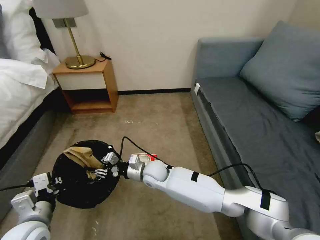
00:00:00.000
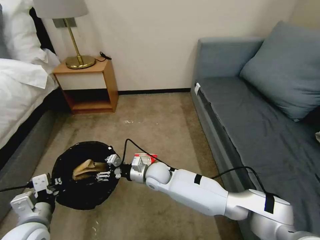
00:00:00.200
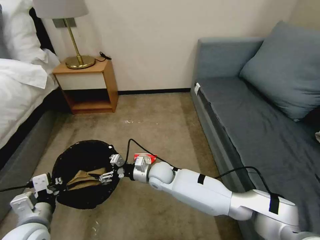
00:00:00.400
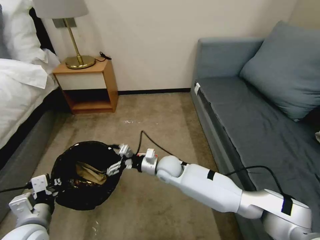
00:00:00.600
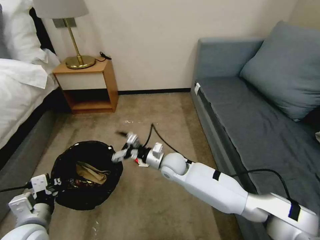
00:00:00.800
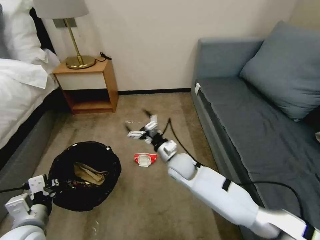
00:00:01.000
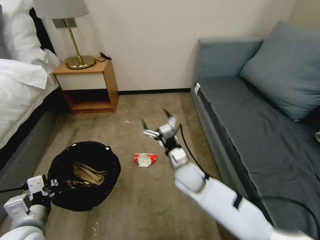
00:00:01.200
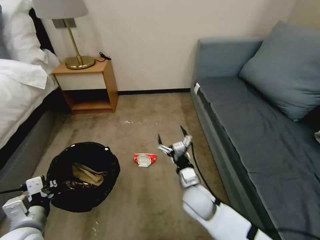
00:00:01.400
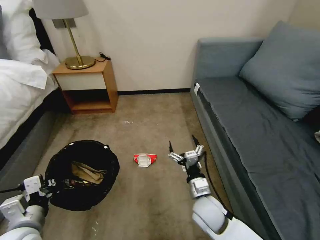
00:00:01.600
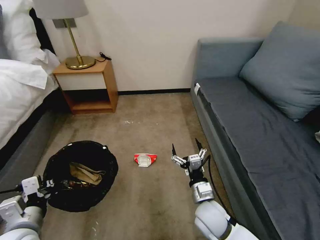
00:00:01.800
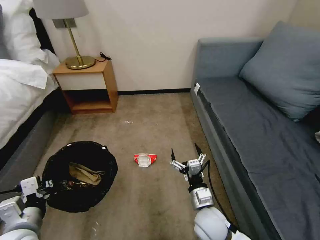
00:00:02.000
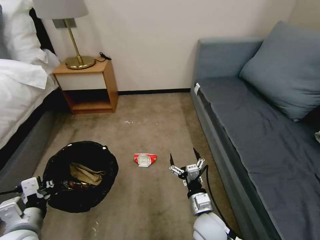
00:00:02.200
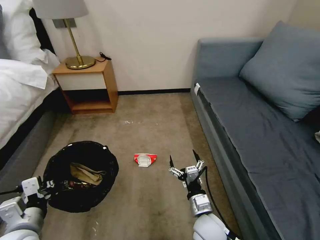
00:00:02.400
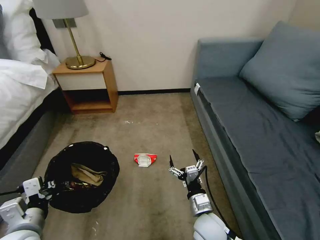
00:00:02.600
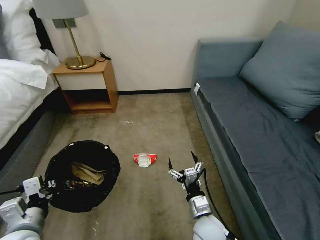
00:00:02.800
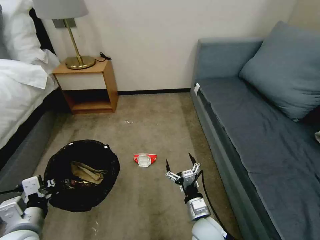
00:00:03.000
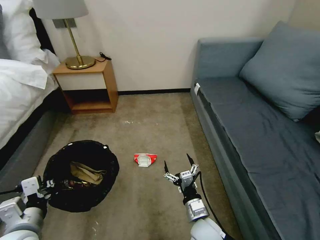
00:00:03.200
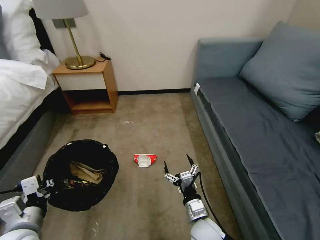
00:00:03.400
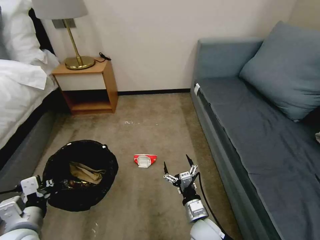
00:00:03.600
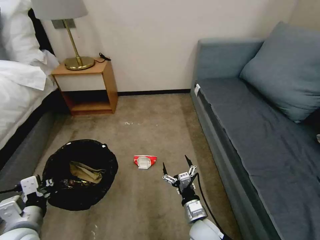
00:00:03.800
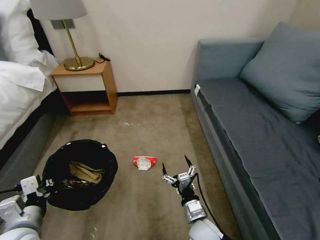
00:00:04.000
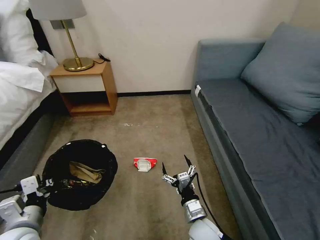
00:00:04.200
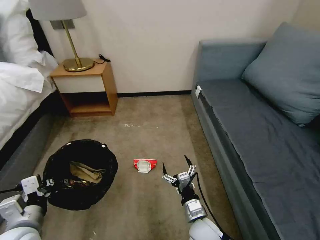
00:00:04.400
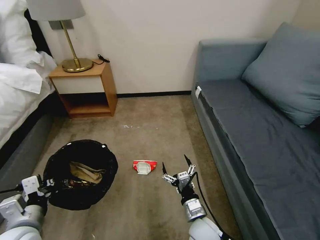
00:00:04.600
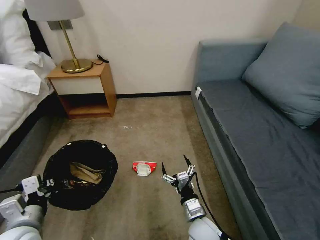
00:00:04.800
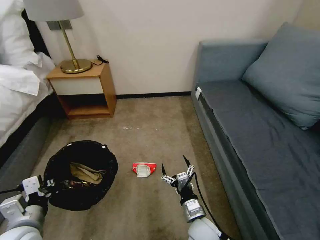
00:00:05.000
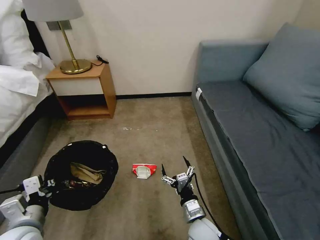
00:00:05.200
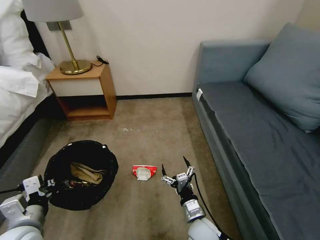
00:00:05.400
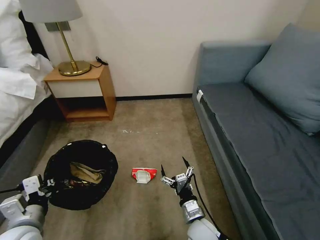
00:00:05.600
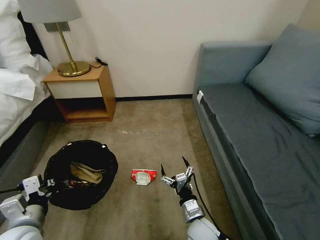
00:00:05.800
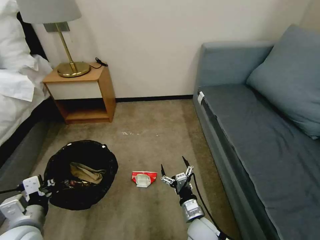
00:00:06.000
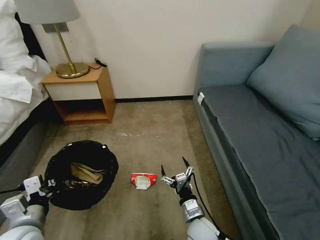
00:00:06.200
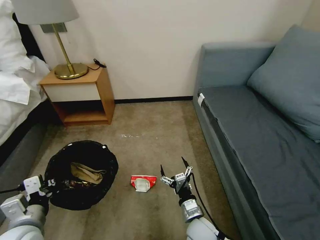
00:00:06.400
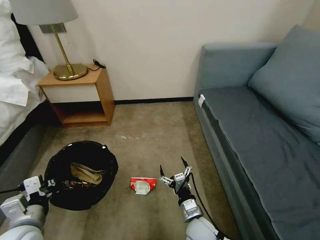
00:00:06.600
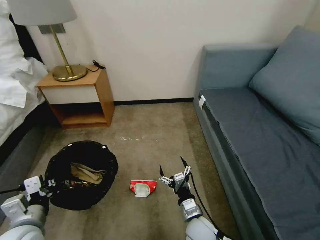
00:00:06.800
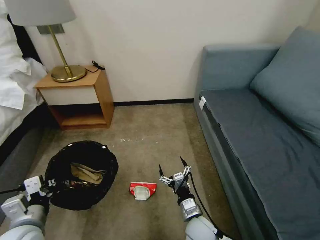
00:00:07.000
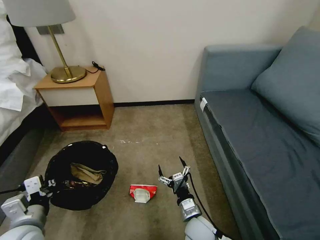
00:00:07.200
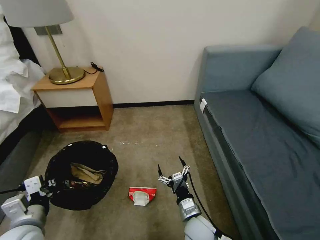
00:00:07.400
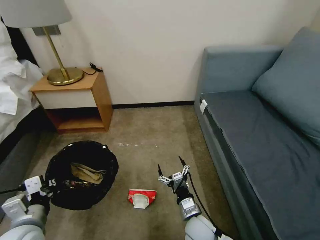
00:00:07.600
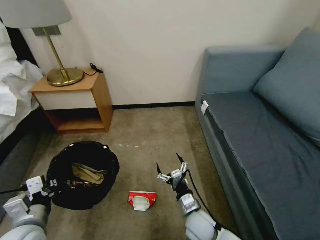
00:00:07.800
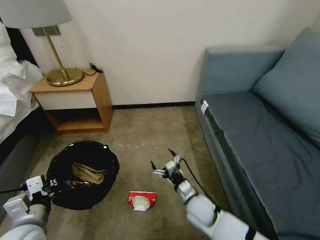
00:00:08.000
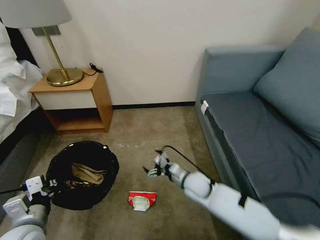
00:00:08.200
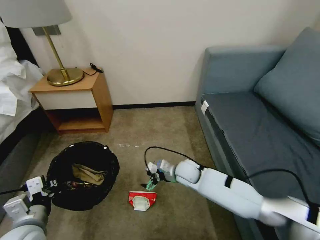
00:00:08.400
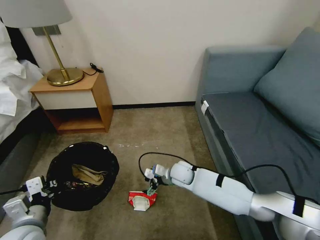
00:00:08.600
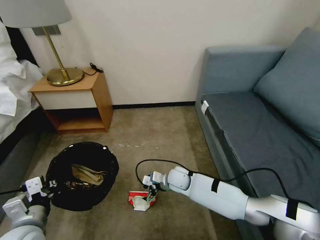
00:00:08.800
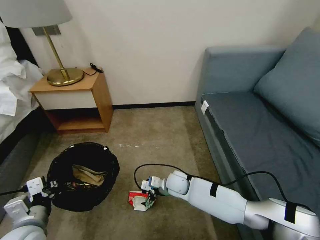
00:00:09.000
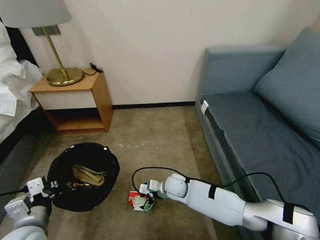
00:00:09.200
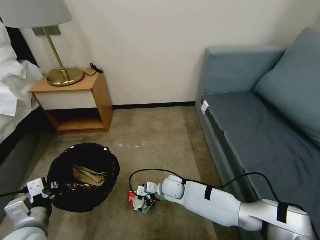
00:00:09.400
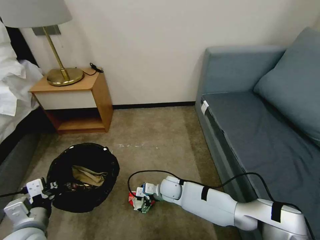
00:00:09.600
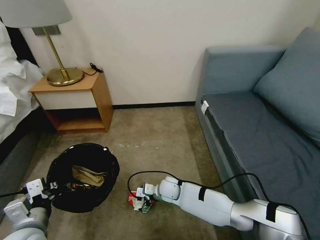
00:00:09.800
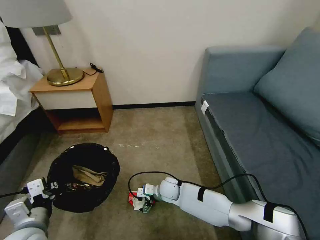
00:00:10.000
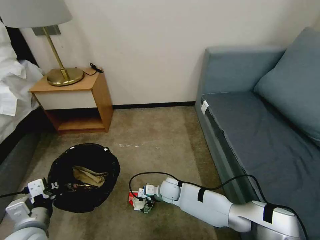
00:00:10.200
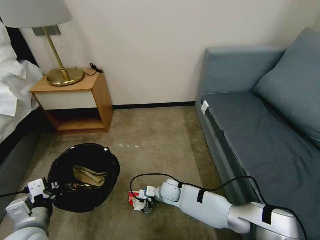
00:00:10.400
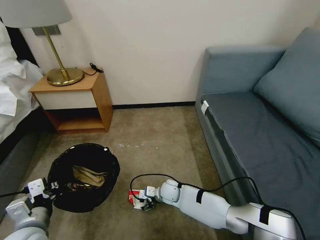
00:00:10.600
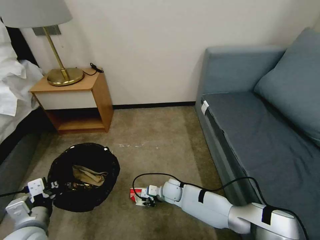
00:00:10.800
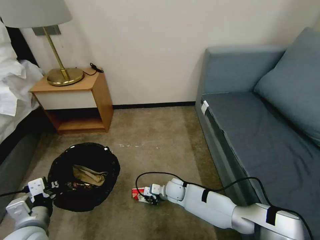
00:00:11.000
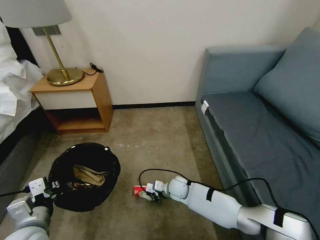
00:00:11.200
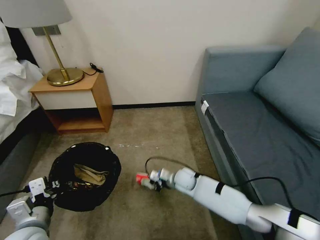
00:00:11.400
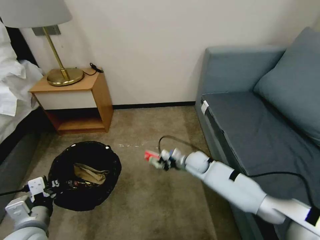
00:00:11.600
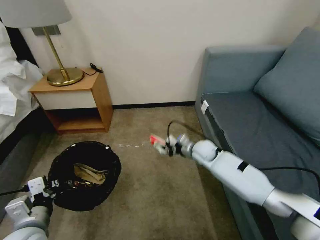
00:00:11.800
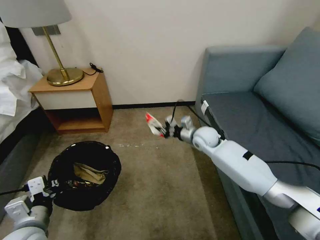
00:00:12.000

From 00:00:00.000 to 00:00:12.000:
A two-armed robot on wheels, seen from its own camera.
Task of the whole recording: Pick up the trash bin, then pick up the garbage on the floor and place it into the trash bin.
From 00:00:00.000 to 00:00:01.600: The right gripper moves to the right and backward, approximately 20 cm, and opens.
From 00:00:01.600 to 00:00:03.000: The right gripper goes approximately 5 cm backward.
From 00:00:03.000 to 00:00:04.400: The two grippers keep their place.
From 00:00:04.400 to 00:00:06.000: The two grippers keep their place.
From 00:00:06.000 to 00:00:07.600: Both grippers stay about where they are.
From 00:00:07.600 to 00:00:09.000: The right gripper travels forward by roughly 15 cm.
From 00:00:09.000 to 00:00:10.400: The right gripper is displaced downward by about 5 cm.
From 00:00:10.400 to 00:00:12.000: The right gripper moves upward, to the right and forward, about 30 cm, and closes.

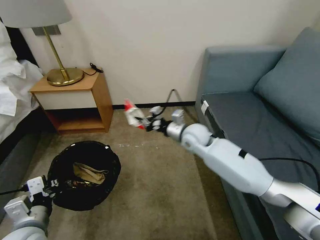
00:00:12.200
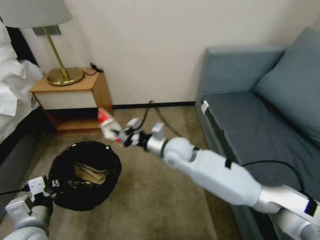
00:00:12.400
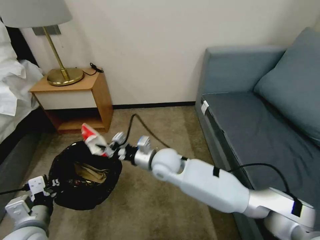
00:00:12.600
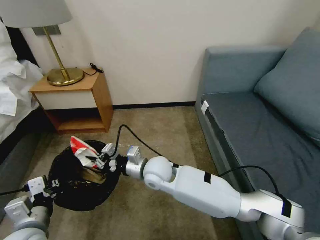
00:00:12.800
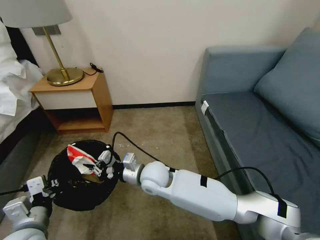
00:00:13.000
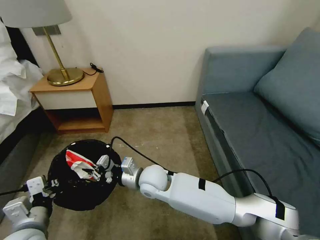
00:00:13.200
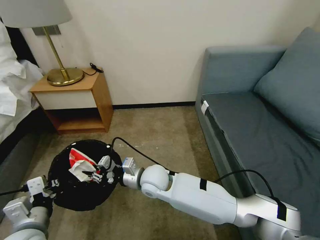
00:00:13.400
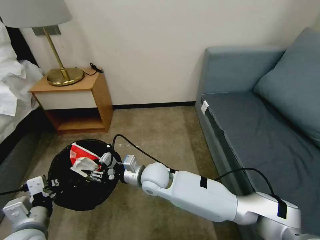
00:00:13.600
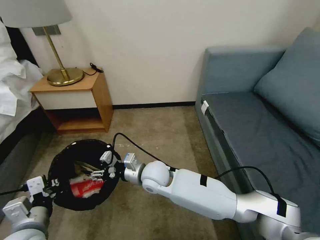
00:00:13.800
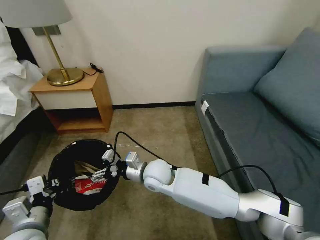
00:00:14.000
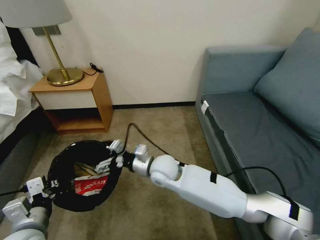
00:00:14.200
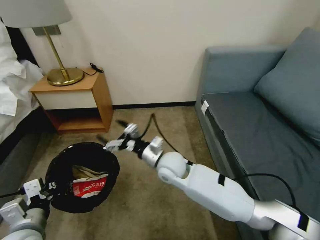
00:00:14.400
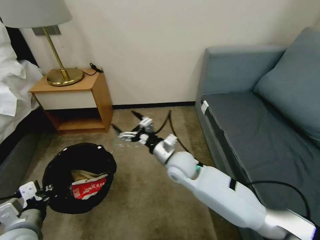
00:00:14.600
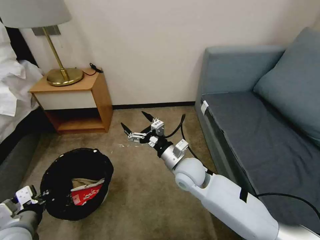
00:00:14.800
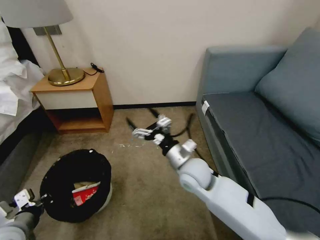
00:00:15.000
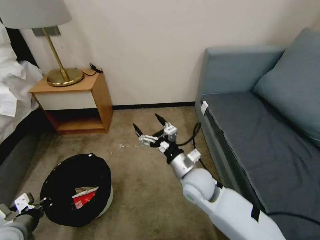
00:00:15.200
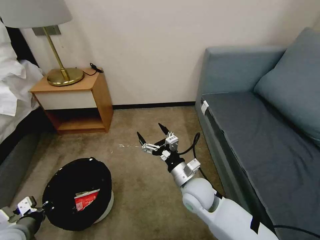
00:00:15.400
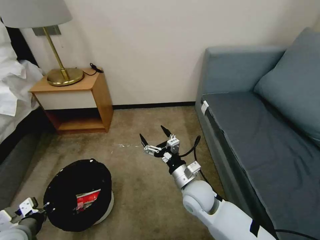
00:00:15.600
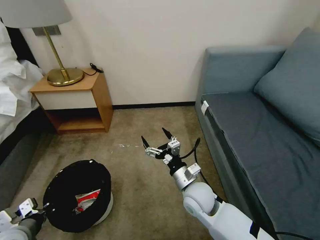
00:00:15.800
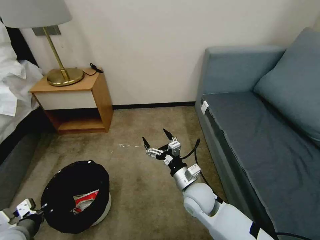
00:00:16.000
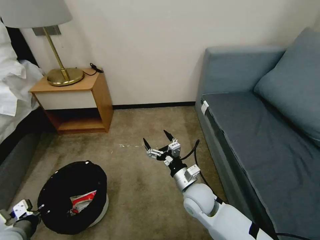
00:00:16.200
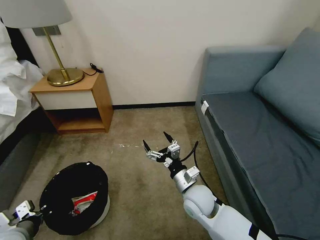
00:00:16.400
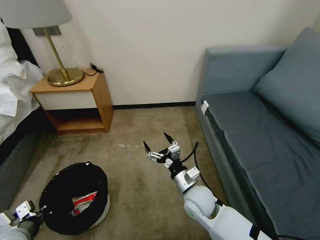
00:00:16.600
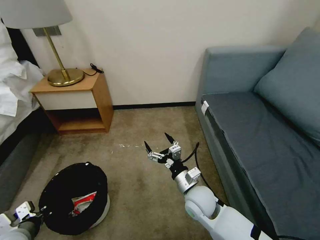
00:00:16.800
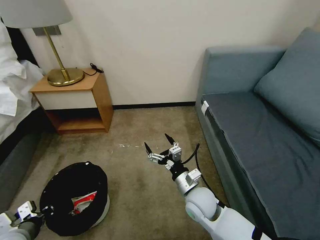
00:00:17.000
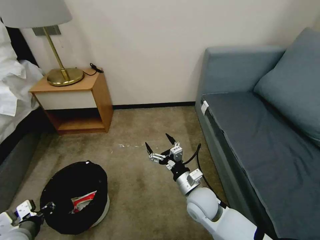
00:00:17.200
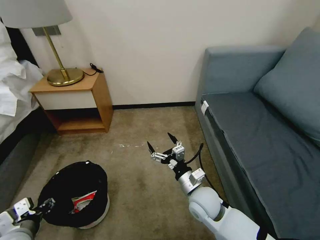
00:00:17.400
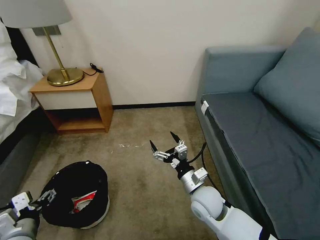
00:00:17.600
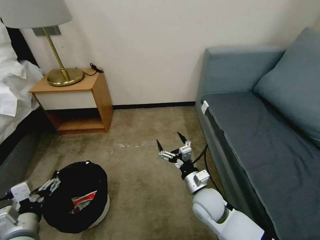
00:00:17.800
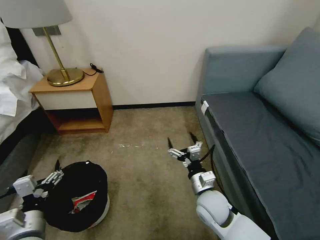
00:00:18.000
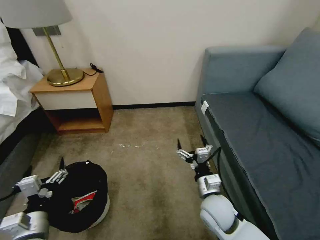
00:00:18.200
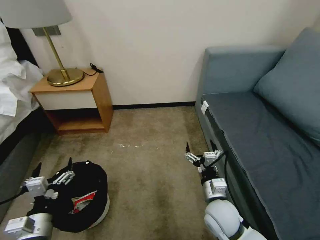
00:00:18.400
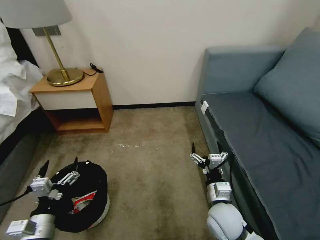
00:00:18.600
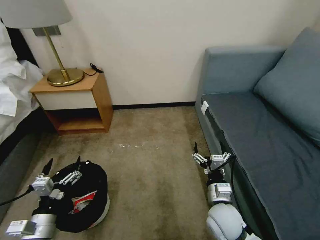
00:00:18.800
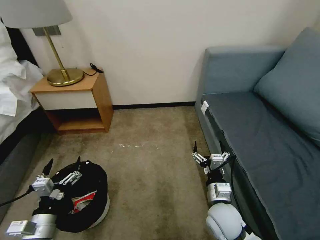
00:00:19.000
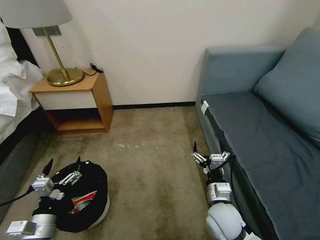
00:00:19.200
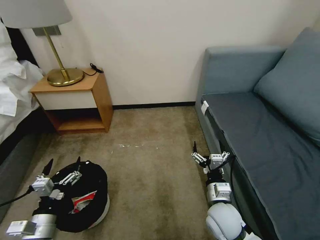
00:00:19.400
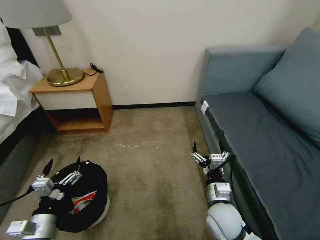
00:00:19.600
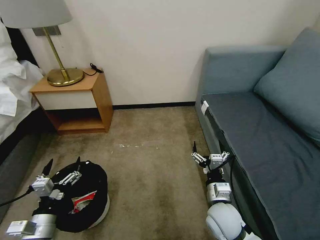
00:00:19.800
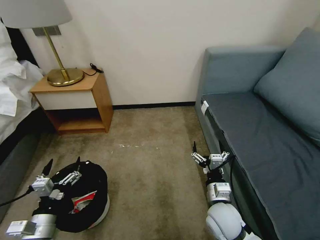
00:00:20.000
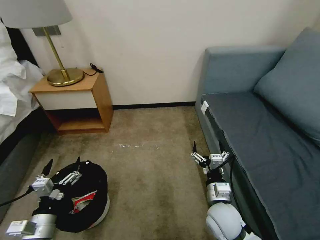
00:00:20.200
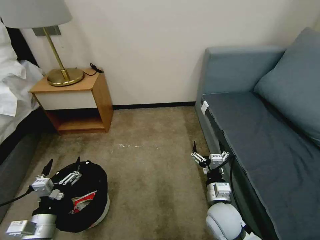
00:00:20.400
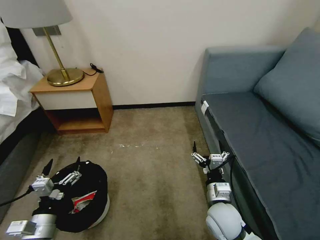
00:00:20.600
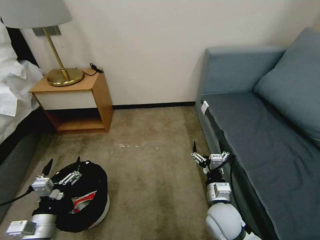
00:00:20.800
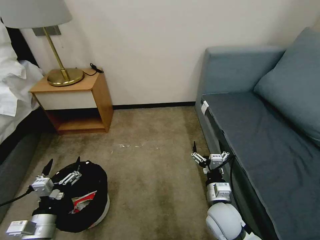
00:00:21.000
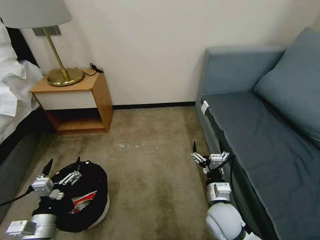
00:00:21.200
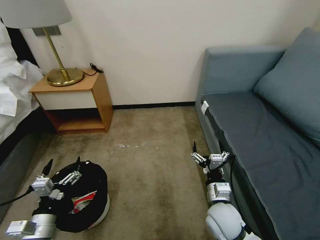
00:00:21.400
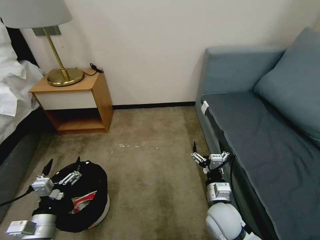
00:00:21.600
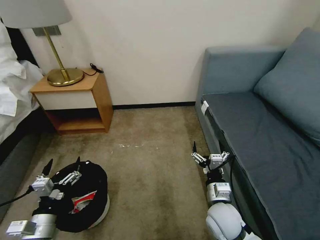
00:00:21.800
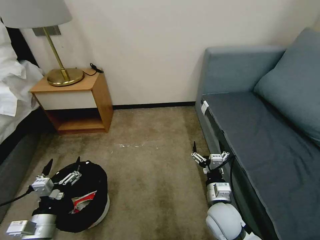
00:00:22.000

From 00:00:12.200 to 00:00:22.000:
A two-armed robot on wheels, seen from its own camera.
Task of the whole recording: Pick up the trash bin, then pick up the garbage on the floor and place it into the trash bin.
From 00:00:12.200 to 00:00:13.600: The right gripper shifts some 20 cm to the left, backward and downward, and opens.
From 00:00:13.600 to 00:00:15.000: The right gripper moves to the right, roughly 10 cm, and opens. The left gripper moves to the left, approximately 5 cm.
From 00:00:15.000 to 00:00:16.400: The left gripper changes place by roughly 5 cm; the right gripper moves downward and backward, some 10 cm.
From 00:00:16.400 to 00:00:17.800: The left gripper is displaced to the right by about 5 cm, and opens up.
From 00:00:17.800 to 00:00:19.200: The left gripper shifts approximately 5 cm downward. The right gripper shifts by some 5 cm.
From 00:00:19.200 to 00:00:22.000: The two grippers keep their place.
